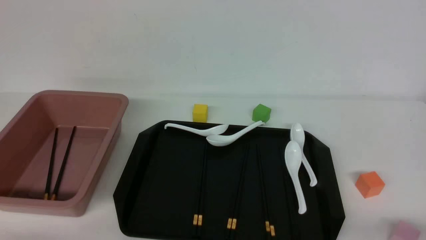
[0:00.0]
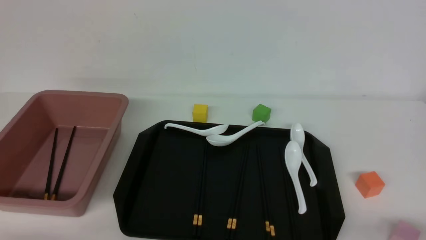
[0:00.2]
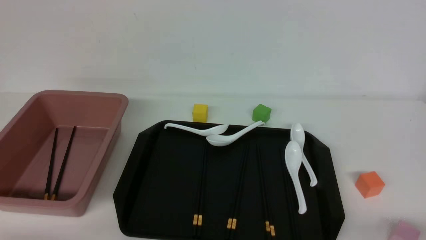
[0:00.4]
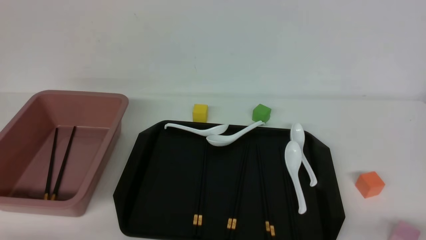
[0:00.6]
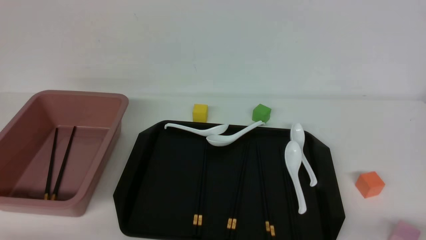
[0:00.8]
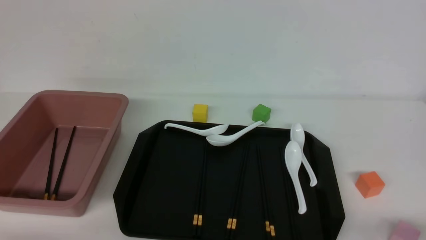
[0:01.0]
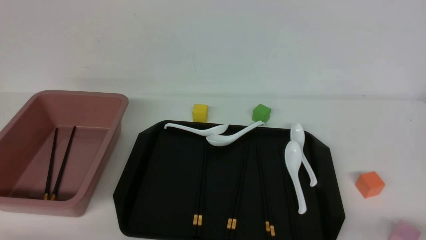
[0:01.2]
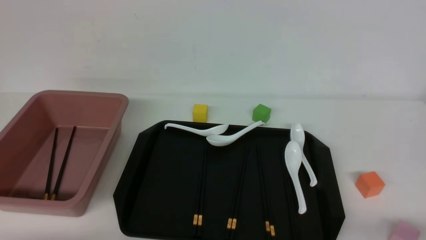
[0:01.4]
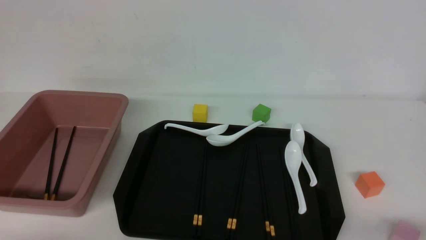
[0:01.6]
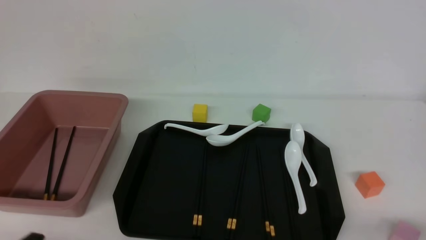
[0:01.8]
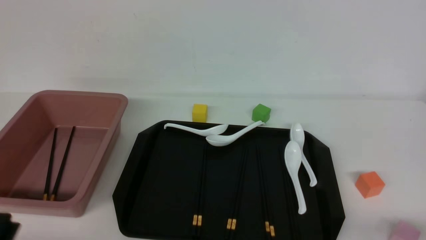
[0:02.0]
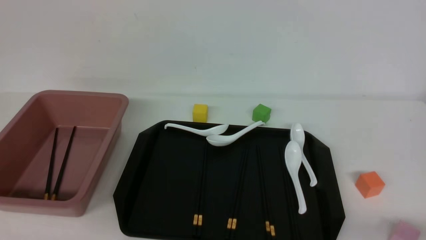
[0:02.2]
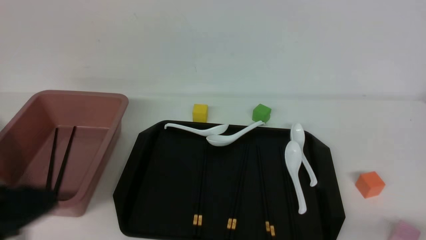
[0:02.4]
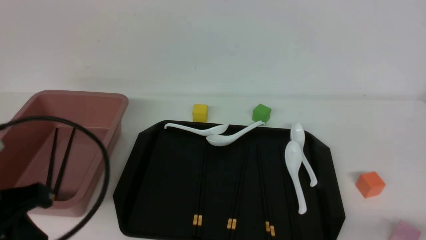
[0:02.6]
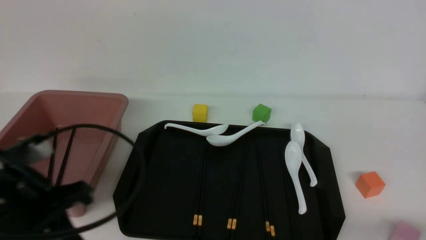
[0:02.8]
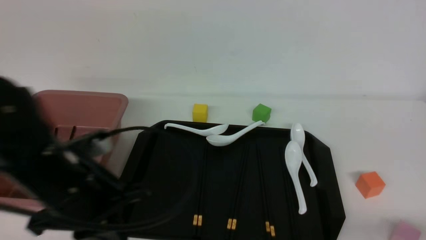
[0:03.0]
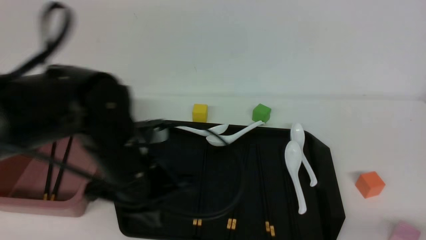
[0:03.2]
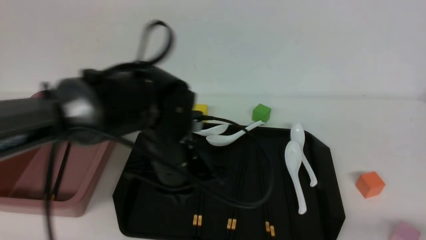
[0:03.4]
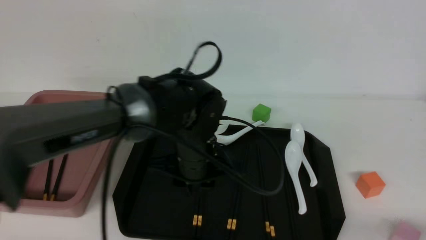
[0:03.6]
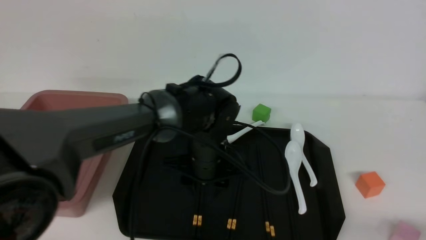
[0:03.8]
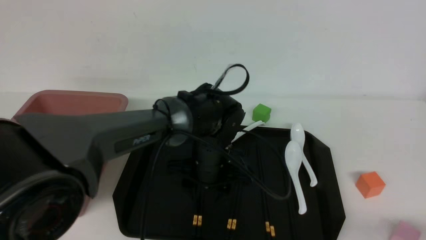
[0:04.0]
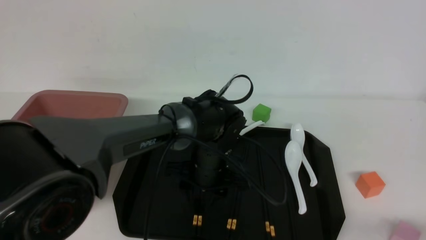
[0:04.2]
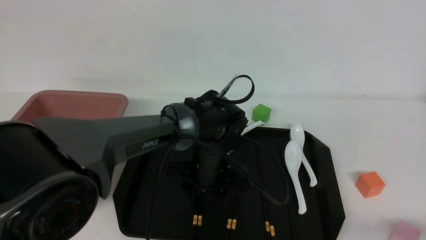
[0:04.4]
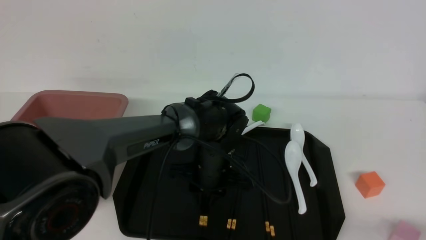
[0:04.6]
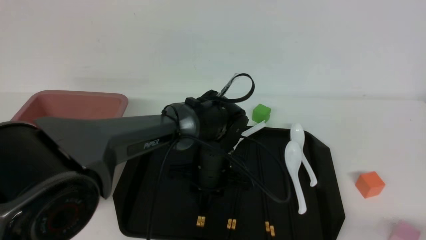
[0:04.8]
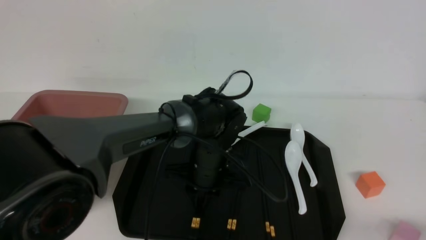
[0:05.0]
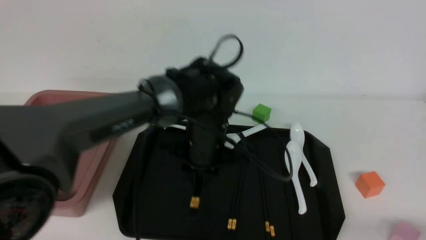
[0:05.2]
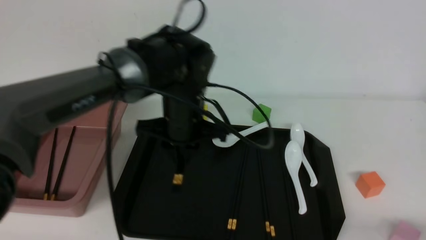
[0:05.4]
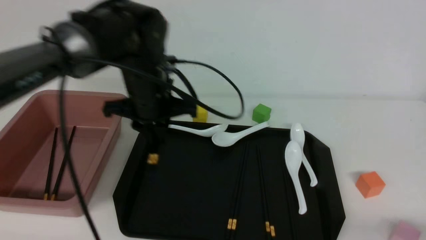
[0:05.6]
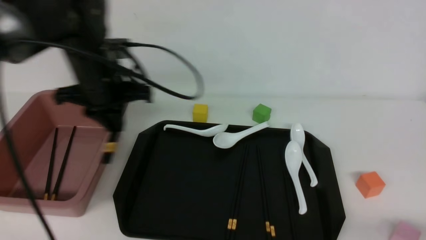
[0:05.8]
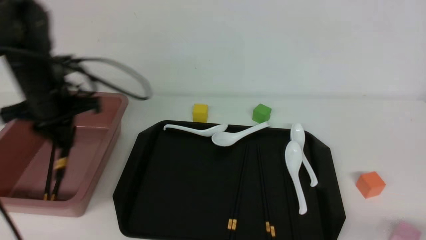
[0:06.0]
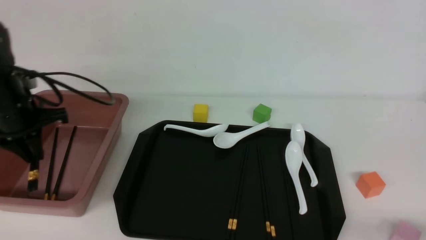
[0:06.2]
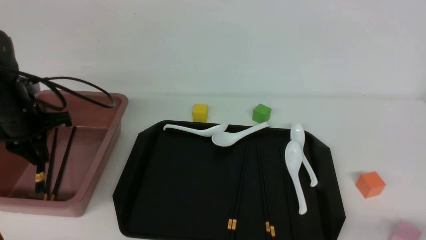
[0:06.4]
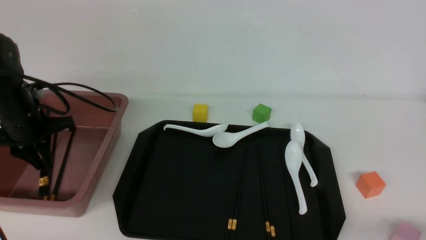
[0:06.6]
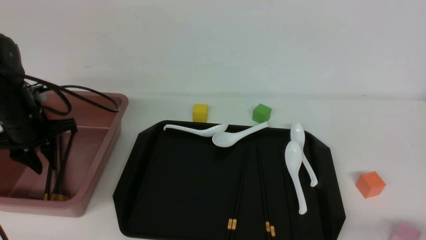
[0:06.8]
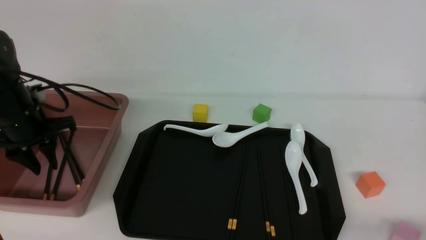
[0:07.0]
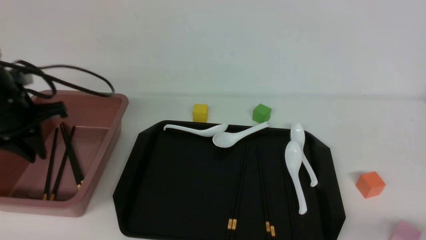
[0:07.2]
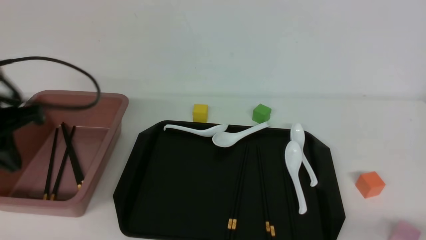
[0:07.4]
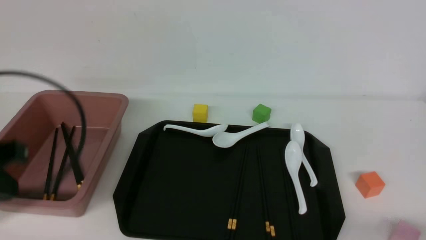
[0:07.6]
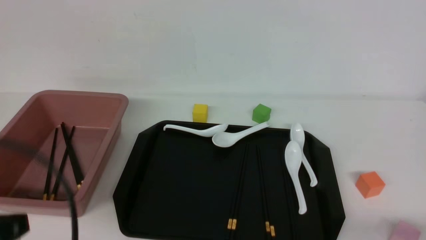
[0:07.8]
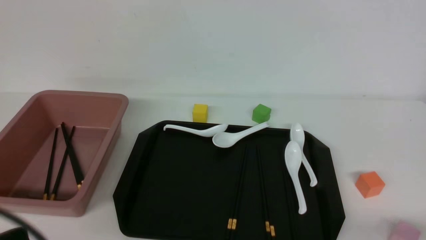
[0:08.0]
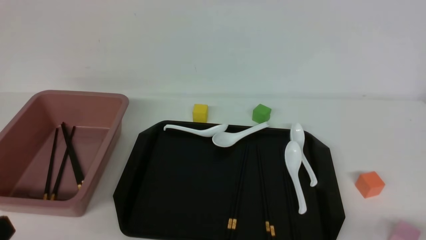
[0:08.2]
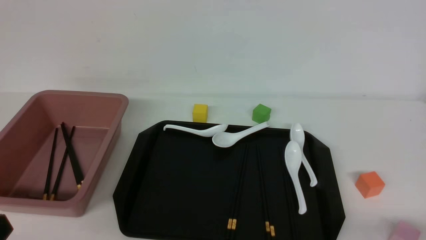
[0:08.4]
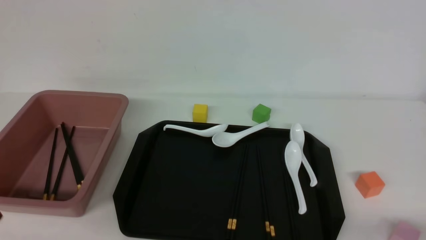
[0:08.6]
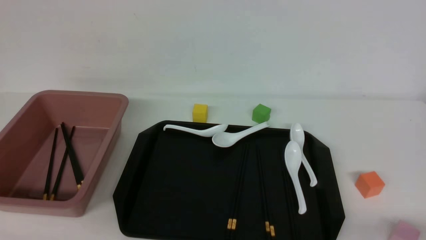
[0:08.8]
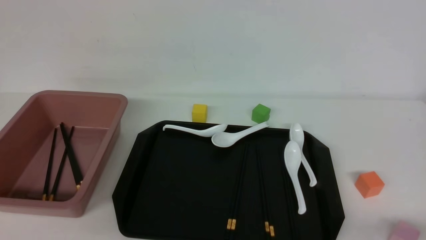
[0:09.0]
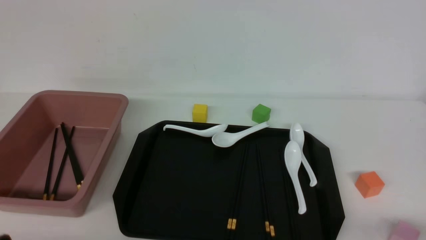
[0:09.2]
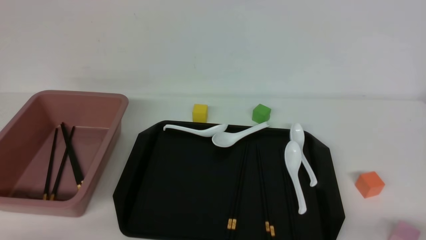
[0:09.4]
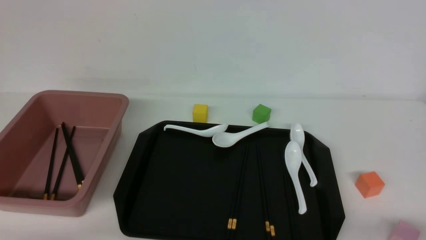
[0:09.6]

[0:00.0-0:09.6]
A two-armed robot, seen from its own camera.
Step, 0:00.0 to 0:05.2: use the left arm to grab a pair of chopsticks.
Step, 0:05.4 to 0:07.0: use the left arm to put the chopsticks into the lunch box.
0:01.6 to 0:03.2: The left gripper goes approximately 25 cm forward, to the right and upward, and closes its fingers.
0:03.2 to 0:04.8: The left gripper is displaced to the right, forward and downward by about 20 cm, and opens.
0:04.8 to 0:06.4: The left gripper is displaced to the left by roughly 30 cm.
0:06.4 to 0:08.0: The left gripper goes roughly 30 cm backward.
0:08.0 to 0:09.6: The left gripper moves downward, some 10 cm.

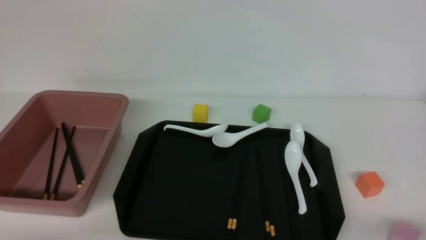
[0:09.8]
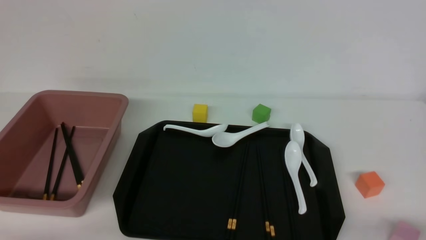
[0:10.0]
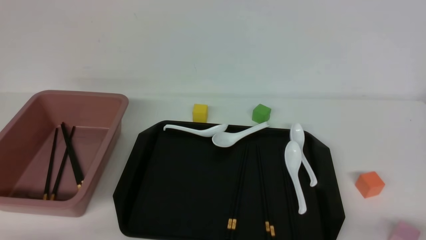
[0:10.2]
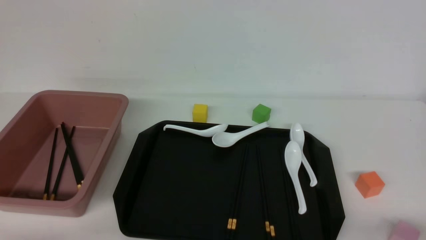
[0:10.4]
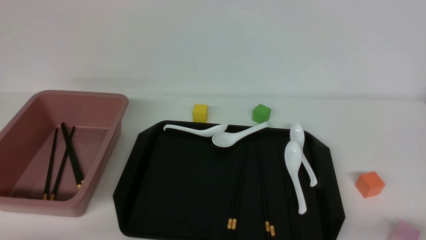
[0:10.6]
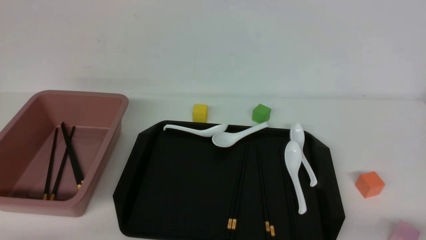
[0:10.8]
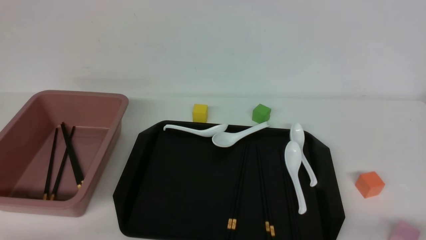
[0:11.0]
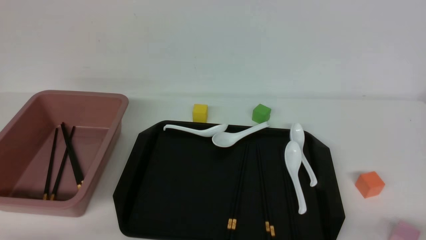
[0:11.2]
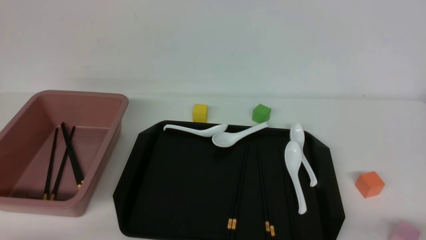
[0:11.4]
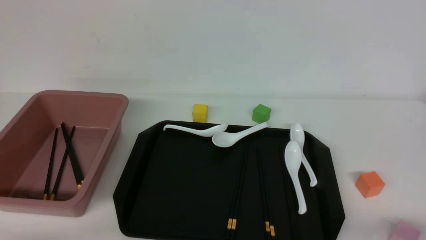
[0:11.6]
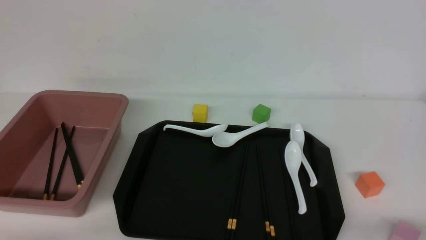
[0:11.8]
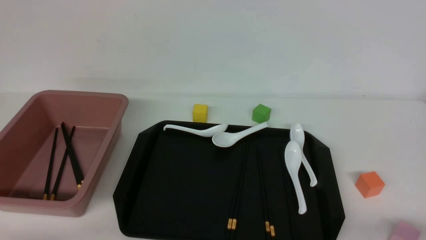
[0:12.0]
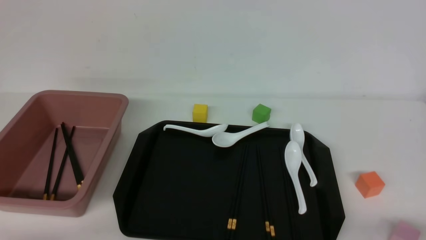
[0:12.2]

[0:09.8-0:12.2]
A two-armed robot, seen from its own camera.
0:09.8 to 0:12.2: Both grippers stay about where they are.

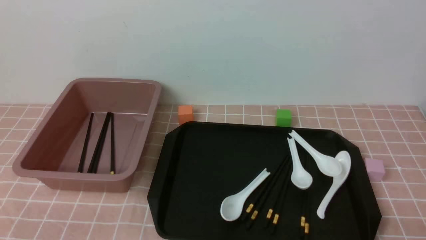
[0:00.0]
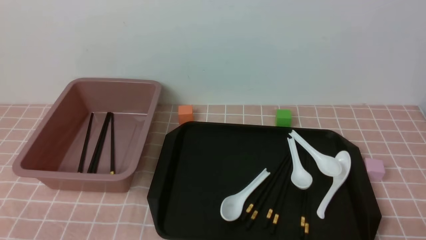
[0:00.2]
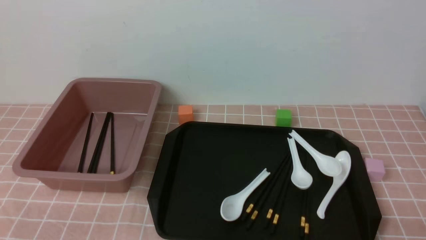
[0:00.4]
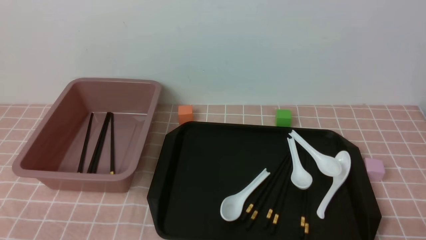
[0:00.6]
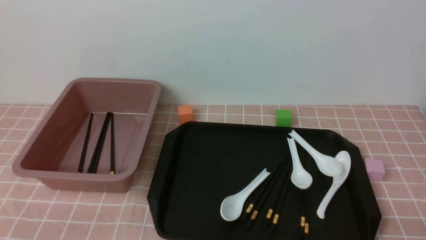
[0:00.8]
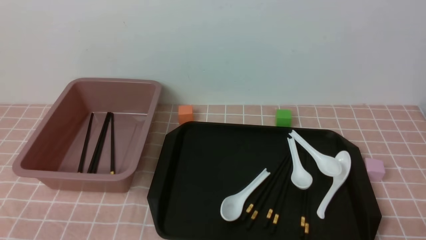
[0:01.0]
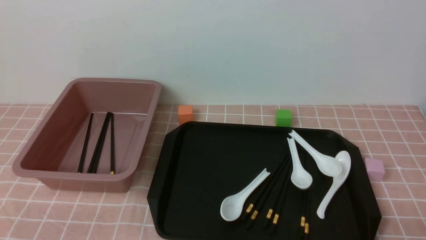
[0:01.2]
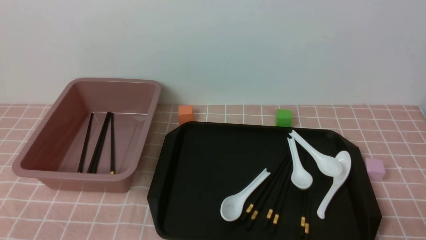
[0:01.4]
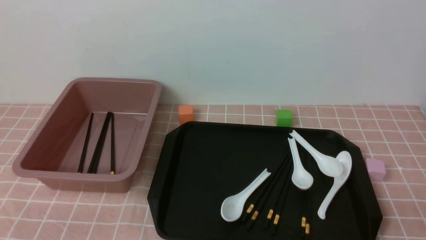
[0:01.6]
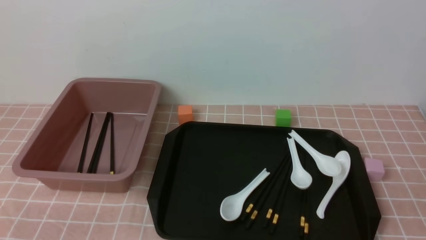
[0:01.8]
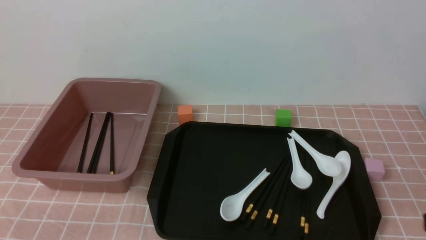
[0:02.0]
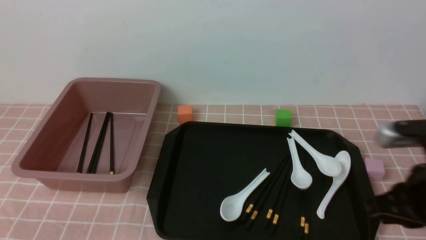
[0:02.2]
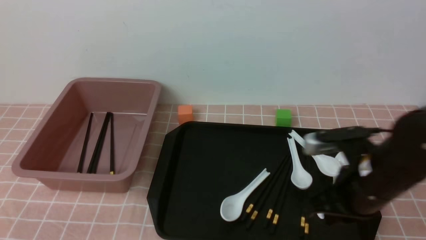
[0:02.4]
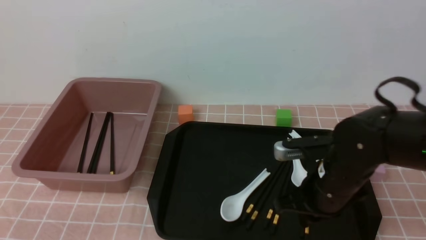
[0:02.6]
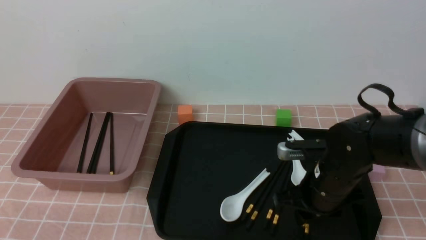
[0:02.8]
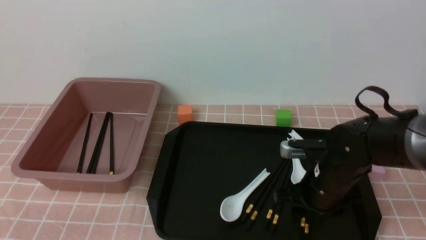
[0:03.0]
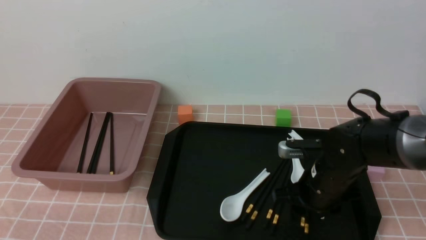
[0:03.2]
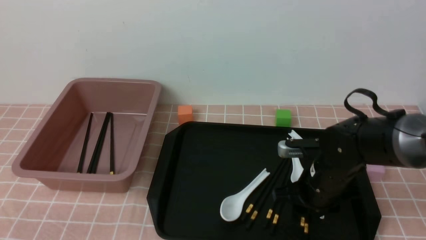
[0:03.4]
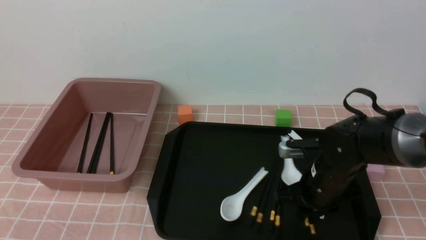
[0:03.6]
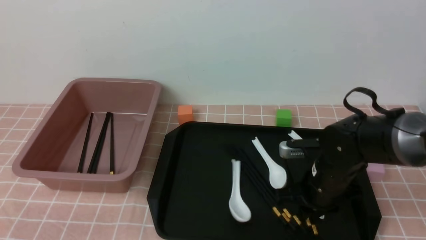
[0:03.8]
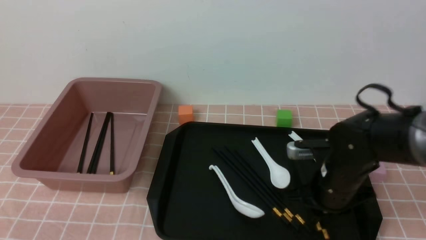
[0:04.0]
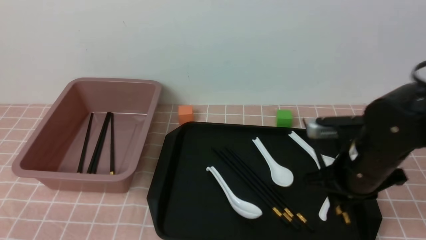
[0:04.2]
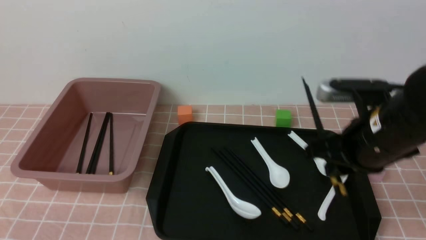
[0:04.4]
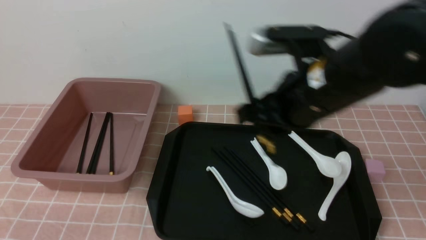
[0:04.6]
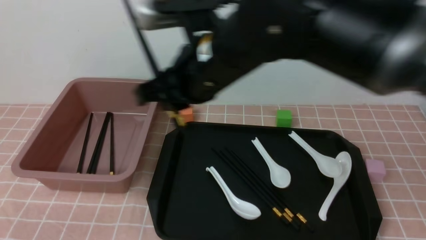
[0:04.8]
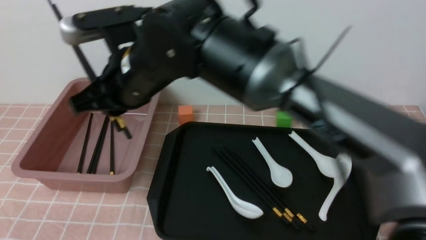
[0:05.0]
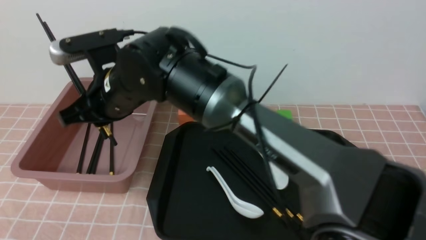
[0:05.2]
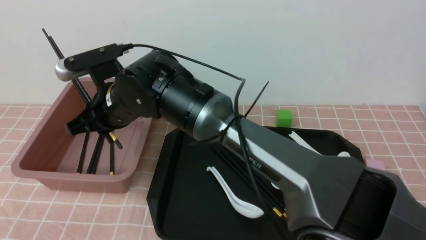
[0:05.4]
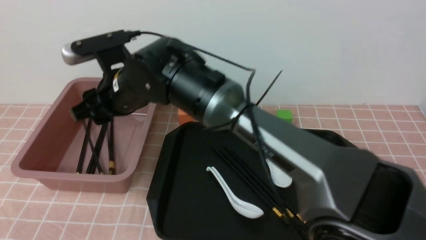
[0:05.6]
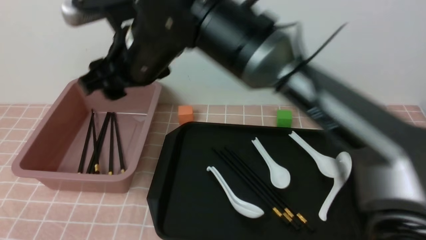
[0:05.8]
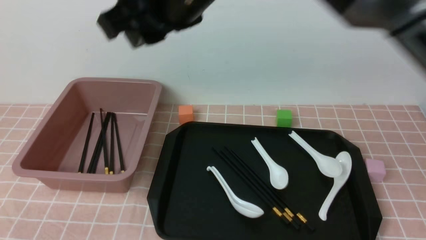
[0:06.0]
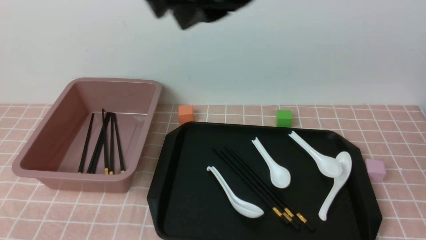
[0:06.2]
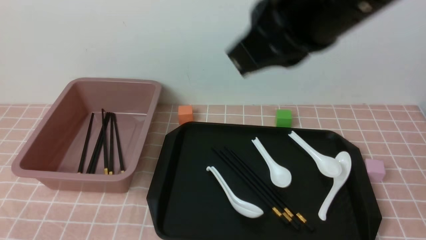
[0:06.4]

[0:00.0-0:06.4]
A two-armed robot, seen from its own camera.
Step, 0:00.0 to 0:04.2: use the right arm to grab a pair of chopsticks.
Step, 0:04.4 to 0:05.8: use the right arm to put the chopsticks into the lunch box.
0:00.0 to 0:01.6: The right gripper moves upward, about 5 cm.
0:01.6 to 0:03.2: The right gripper heads forward and to the left, covering about 30 cm, and opens.
0:03.2 to 0:04.8: The right gripper moves upward and to the left, approximately 30 cm, and closes up.
0:04.8 to 0:06.4: The right gripper travels upward, backward and to the right by approximately 15 cm, and closes its fingers.
